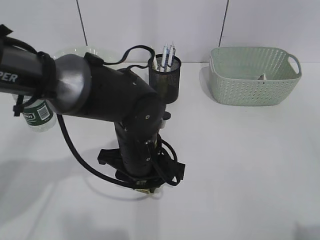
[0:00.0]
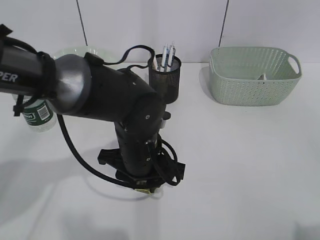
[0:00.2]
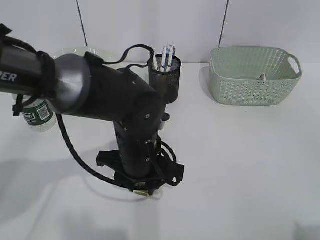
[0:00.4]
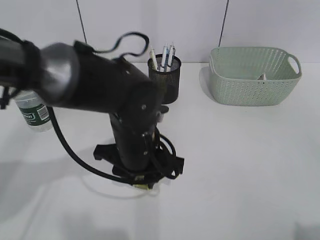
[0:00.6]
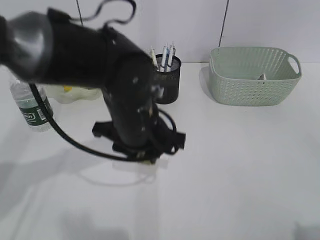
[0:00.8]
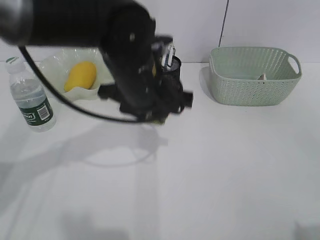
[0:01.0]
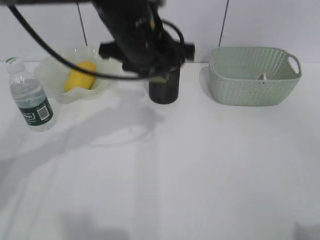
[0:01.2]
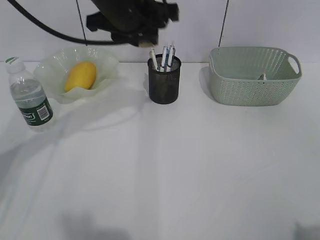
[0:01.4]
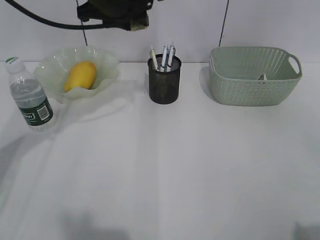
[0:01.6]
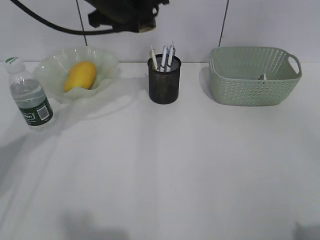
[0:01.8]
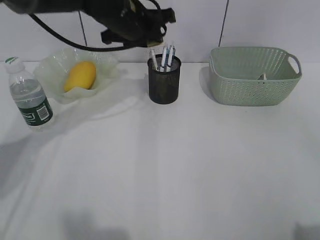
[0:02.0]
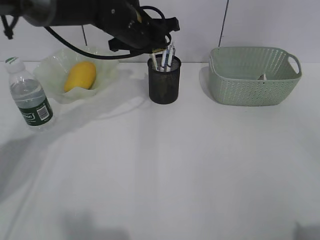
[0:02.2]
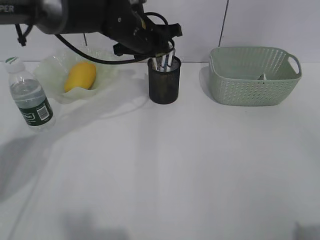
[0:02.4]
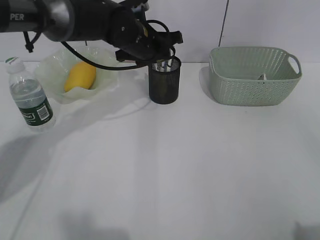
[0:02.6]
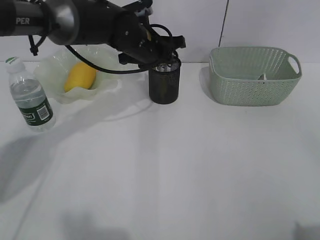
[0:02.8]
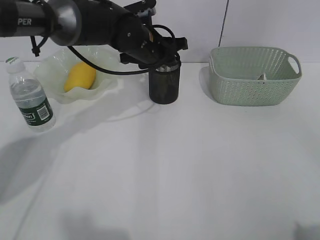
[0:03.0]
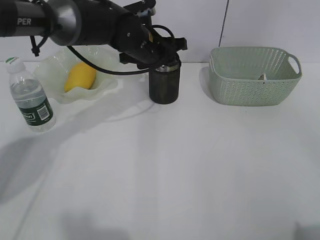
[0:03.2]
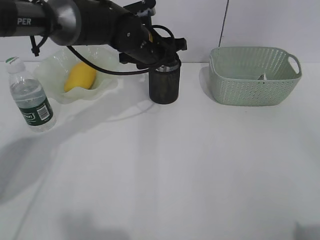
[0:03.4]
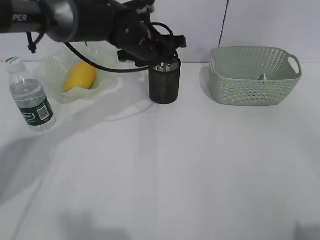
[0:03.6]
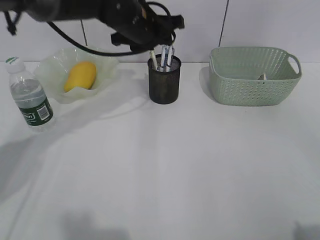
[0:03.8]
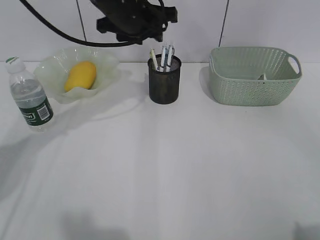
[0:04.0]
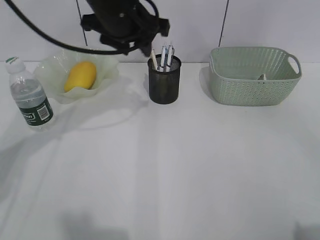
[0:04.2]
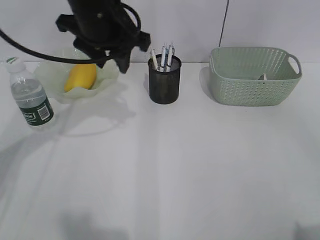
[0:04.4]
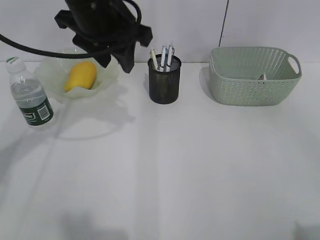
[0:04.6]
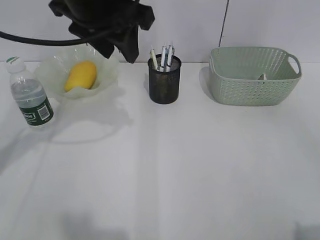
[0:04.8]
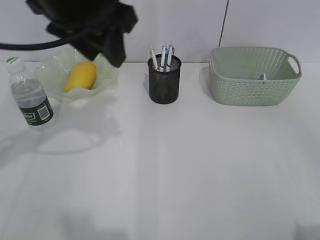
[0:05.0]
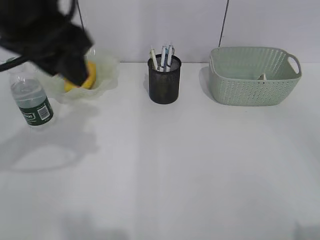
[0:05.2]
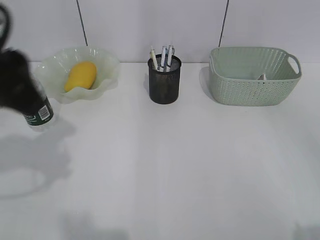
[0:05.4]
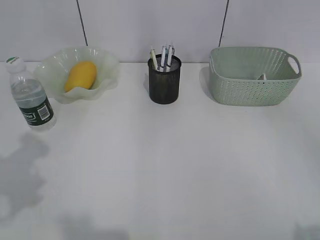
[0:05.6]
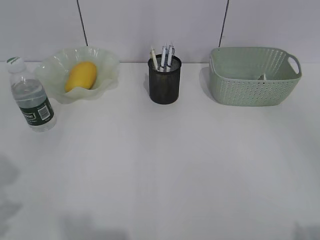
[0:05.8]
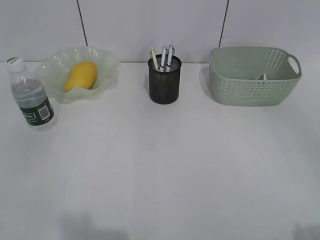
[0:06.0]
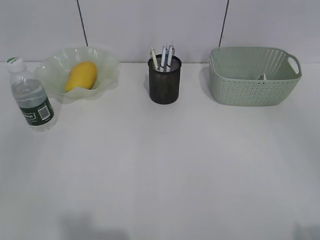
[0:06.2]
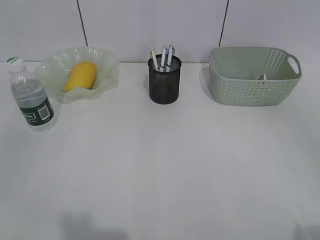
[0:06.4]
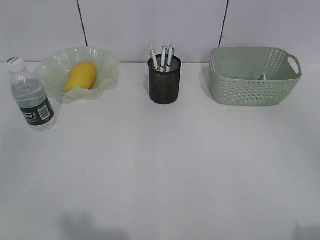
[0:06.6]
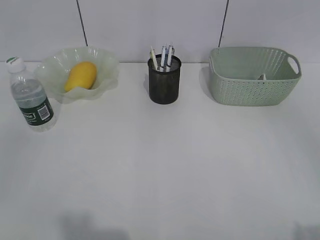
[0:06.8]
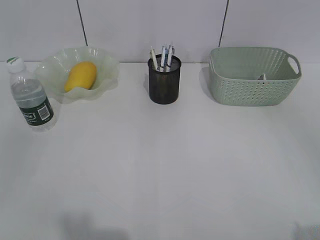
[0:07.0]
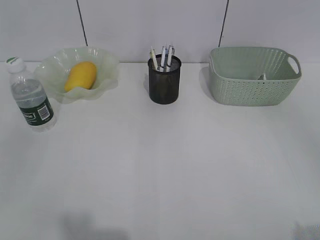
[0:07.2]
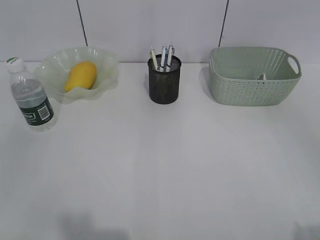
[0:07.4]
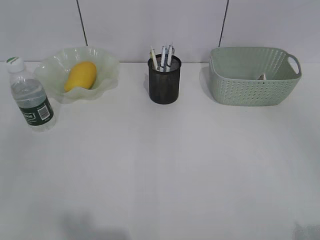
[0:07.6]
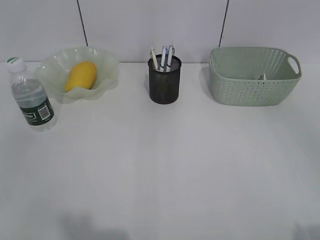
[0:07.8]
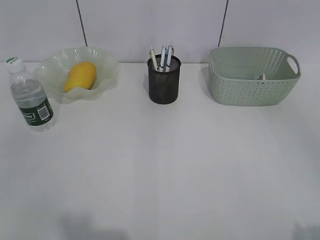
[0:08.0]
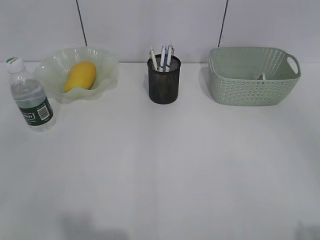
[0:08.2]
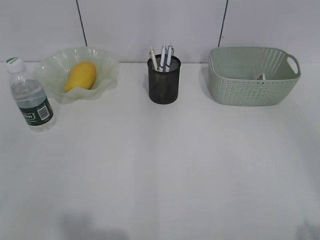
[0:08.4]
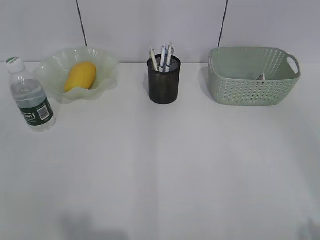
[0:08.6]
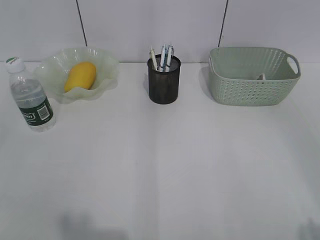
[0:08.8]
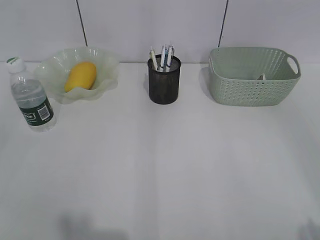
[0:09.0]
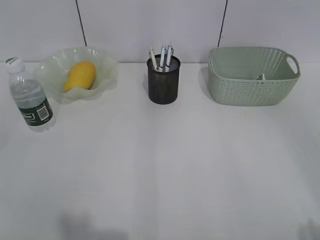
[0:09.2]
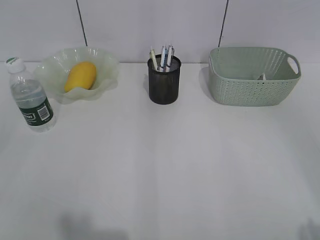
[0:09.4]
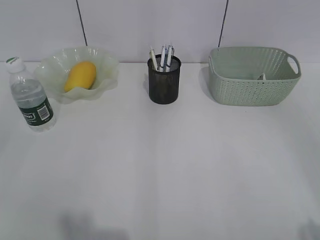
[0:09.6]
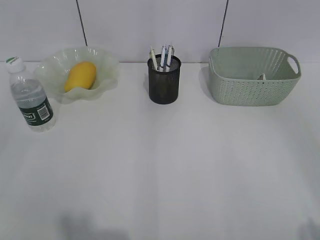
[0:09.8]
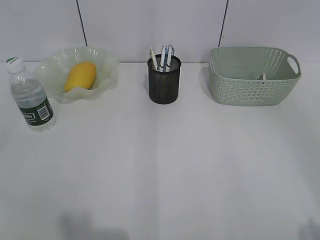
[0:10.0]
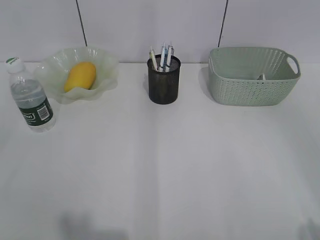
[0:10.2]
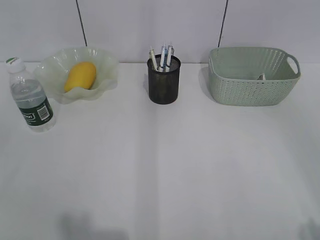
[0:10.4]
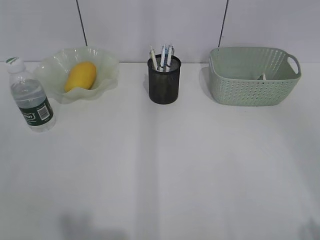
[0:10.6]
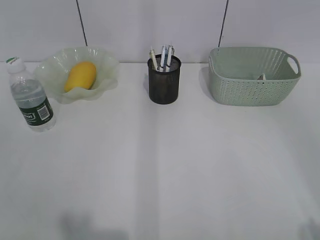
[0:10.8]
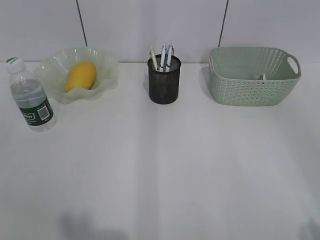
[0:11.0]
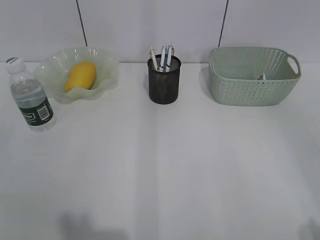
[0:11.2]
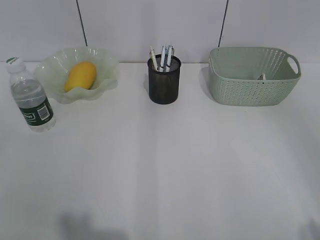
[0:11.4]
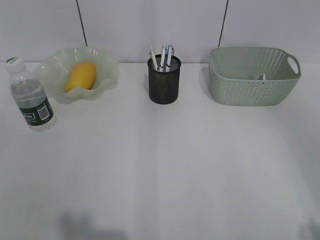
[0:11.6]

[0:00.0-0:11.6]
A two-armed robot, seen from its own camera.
Step, 0:00.2 to 0:03.6: Place the eraser in pen holder with left gripper.
0:00.0 to 0:01.4: The left gripper is displaced upward and forward by some 20 cm.
0:01.4 to 0:02.8: The left gripper heads downward and forward, covering approximately 15 cm.
0:02.8 to 0:04.4: The left gripper travels upward, backward and to the left by approximately 15 cm.
0:04.4 to 0:05.8: The left gripper is displaced backward and to the left by about 30 cm.
0:10.2 to 0:11.6: Neither gripper changes place.

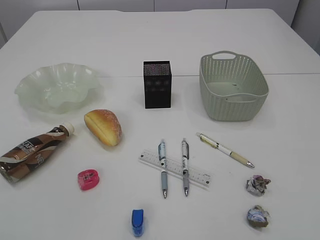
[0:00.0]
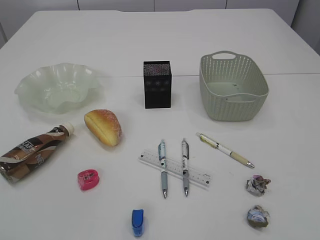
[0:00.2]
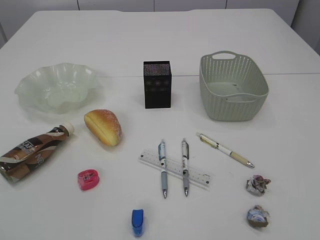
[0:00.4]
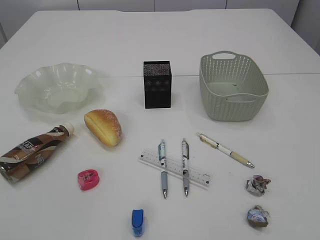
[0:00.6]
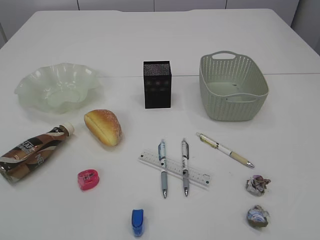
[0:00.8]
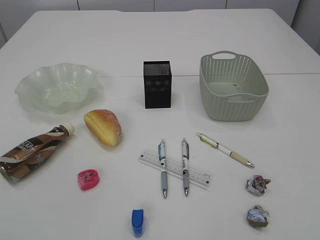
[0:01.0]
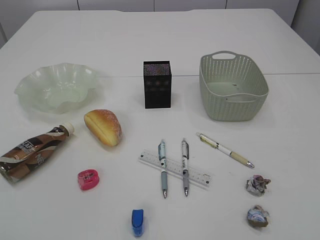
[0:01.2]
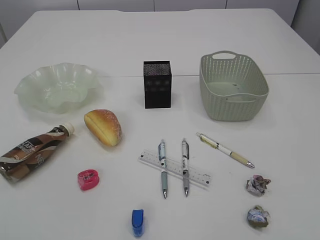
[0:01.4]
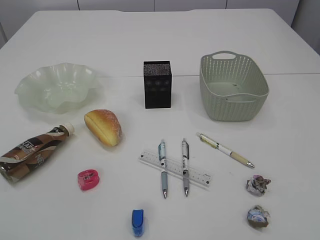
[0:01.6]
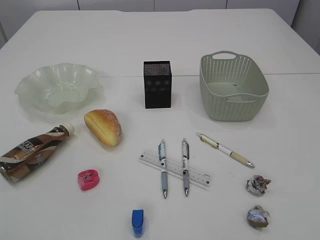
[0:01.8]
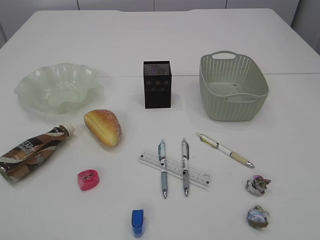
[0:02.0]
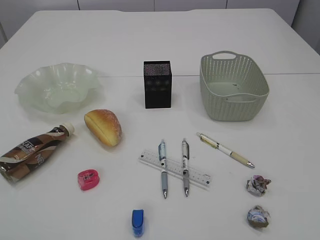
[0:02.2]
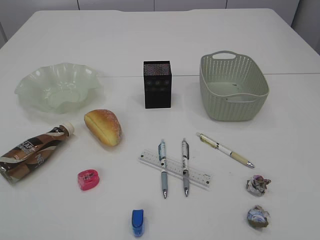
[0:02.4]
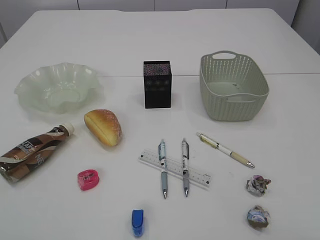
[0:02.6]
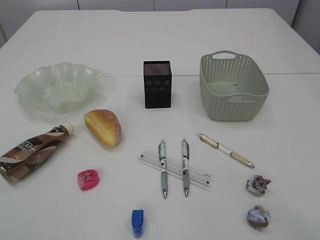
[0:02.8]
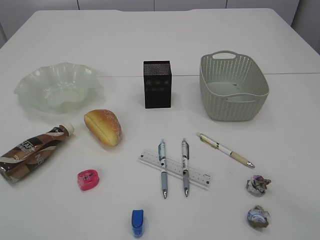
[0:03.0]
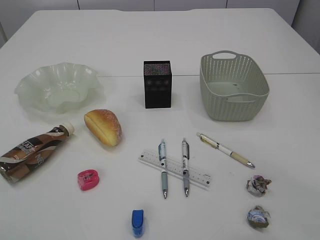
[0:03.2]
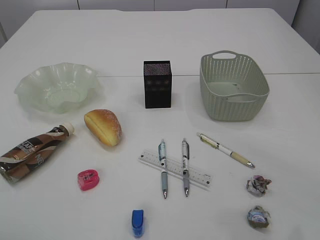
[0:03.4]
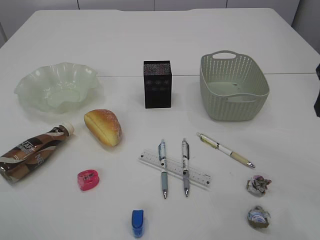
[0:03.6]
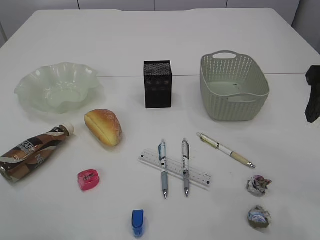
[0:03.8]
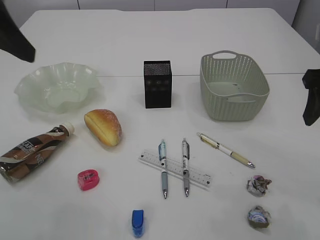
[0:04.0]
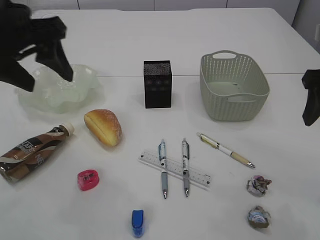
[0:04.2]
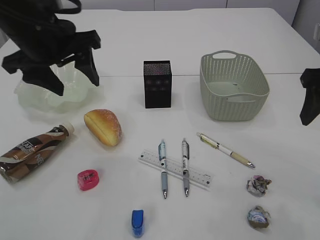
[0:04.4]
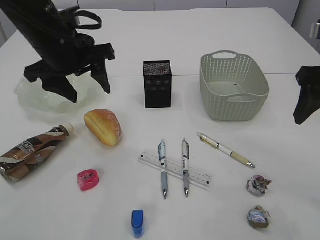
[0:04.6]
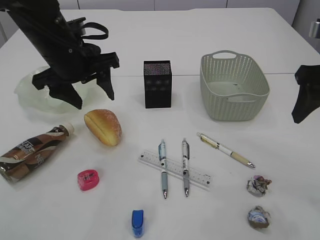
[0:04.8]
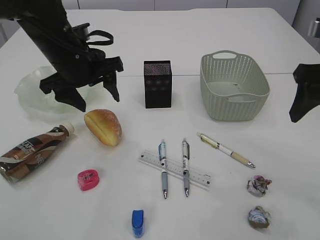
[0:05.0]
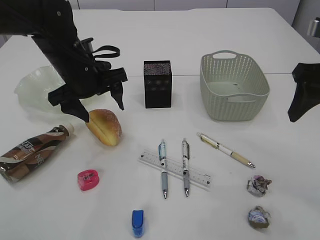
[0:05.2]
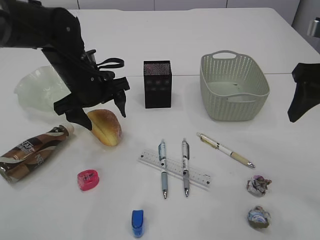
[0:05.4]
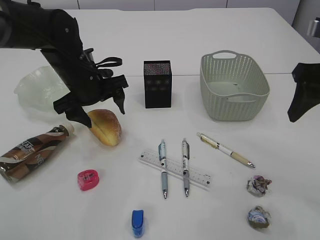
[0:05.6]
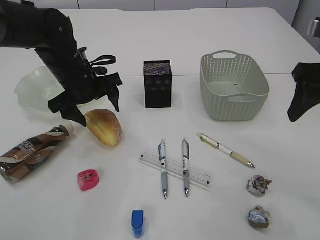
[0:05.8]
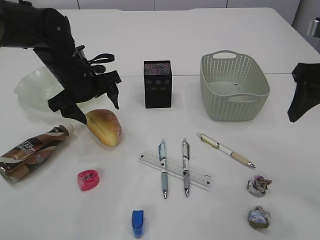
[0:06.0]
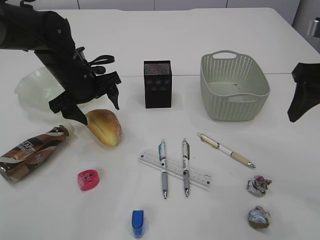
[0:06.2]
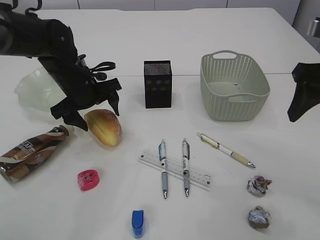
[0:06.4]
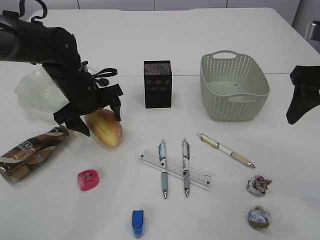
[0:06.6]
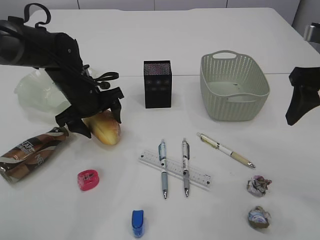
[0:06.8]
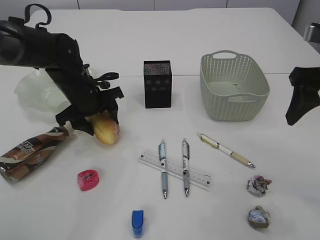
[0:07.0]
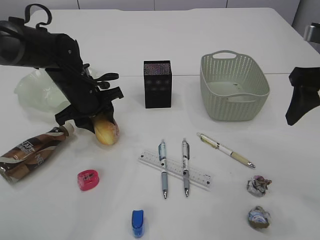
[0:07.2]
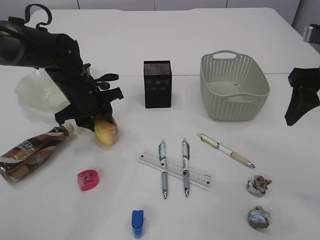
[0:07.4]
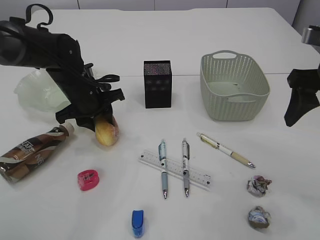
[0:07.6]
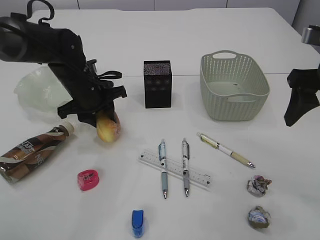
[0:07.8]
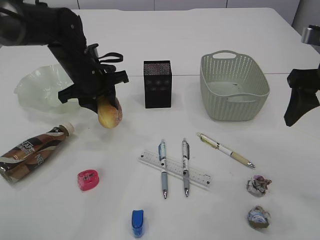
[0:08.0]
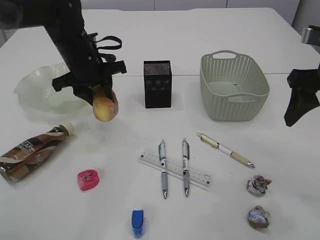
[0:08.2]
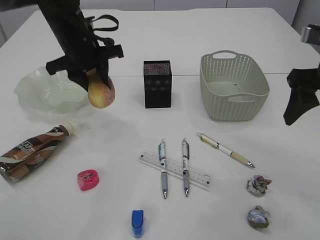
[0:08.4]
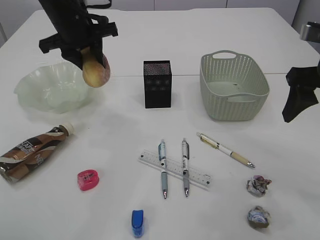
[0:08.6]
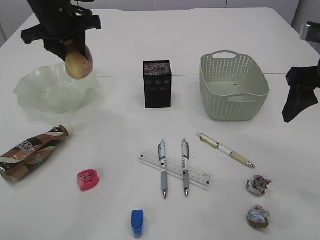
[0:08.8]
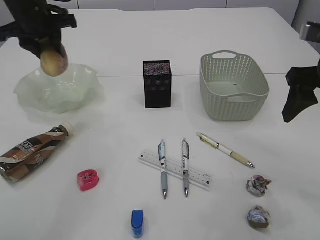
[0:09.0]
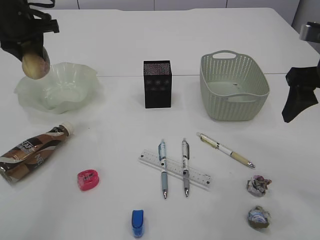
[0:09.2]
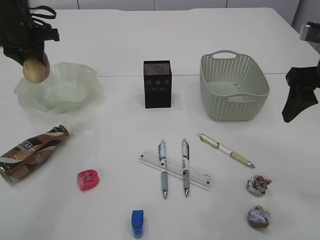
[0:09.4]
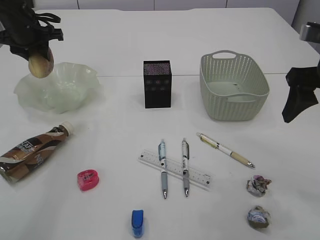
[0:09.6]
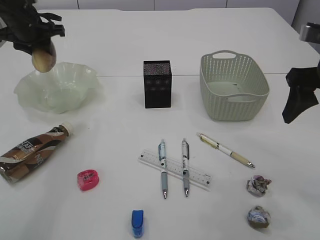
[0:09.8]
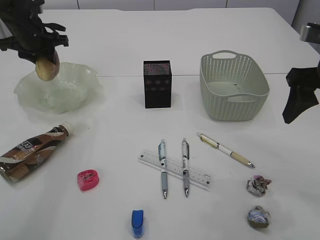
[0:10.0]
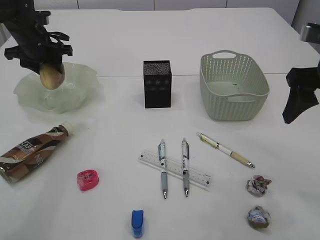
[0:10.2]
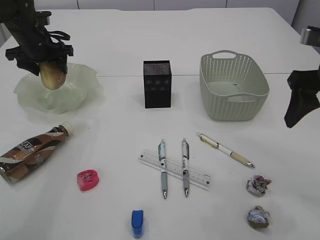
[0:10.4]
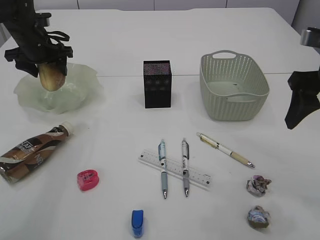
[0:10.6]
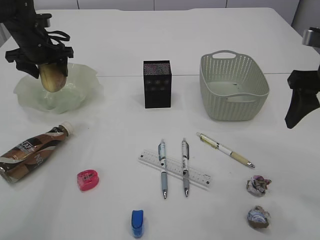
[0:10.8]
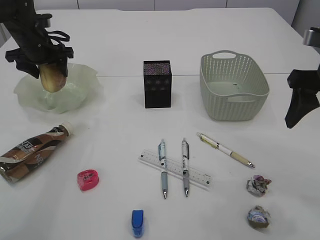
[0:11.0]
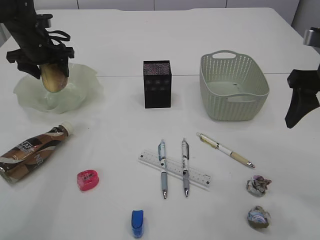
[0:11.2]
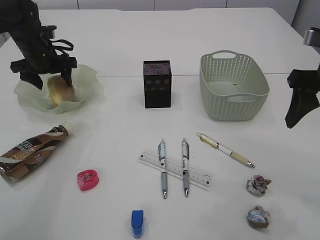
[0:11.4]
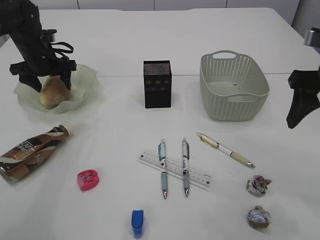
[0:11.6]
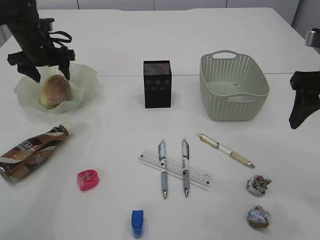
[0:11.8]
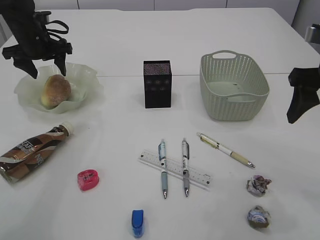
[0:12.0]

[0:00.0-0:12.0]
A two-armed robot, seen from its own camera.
0:03.0 to 0:04.4: The right gripper heads forward, covering roughly 15 cm; the left gripper shifts about 25 cm forward, to the right and downward.
0:04.4 to 0:06.0: The left gripper moves downward and forward, some 15 cm.
0:06.0 to 0:07.6: The left gripper closes its fingers.
0:07.6 to 0:09.0: The left gripper heads upward and to the left, covering roughly 15 cm.
0:09.0 to 0:10.4: The left gripper heads downward and forward, covering about 10 cm, and opens up.
0:10.4 to 0:12.0: The grippers move only a little.
